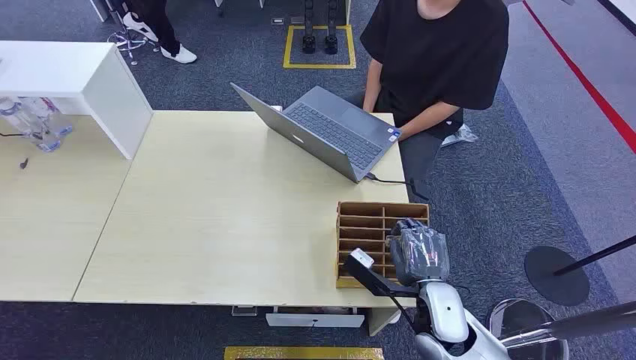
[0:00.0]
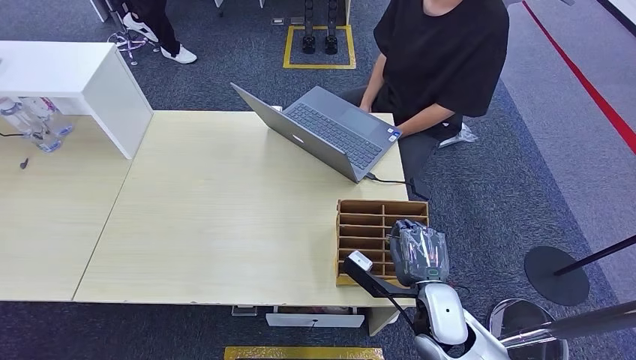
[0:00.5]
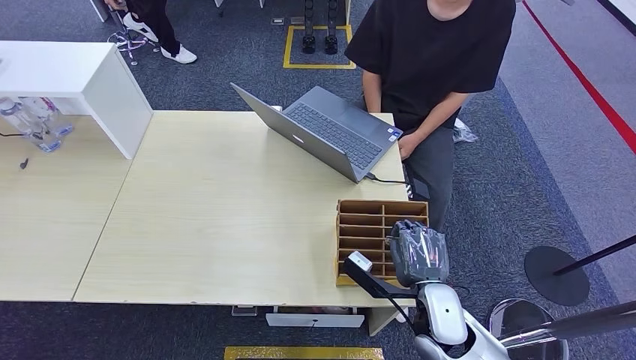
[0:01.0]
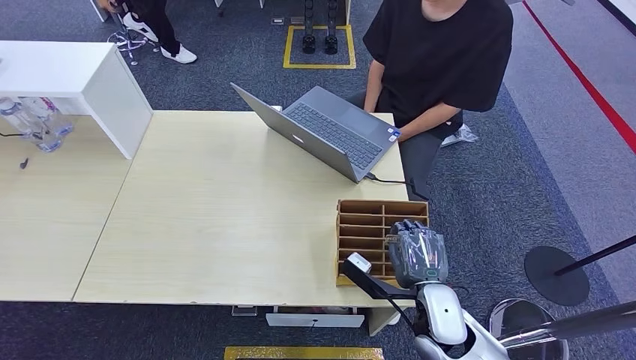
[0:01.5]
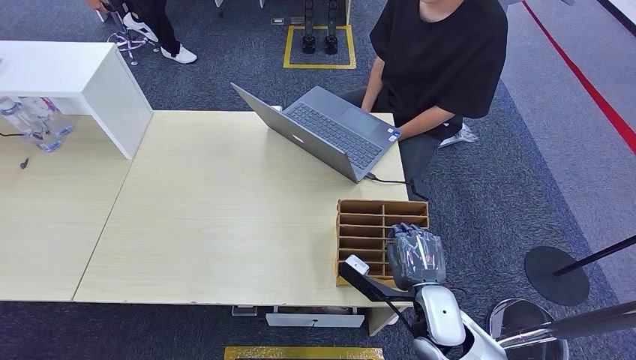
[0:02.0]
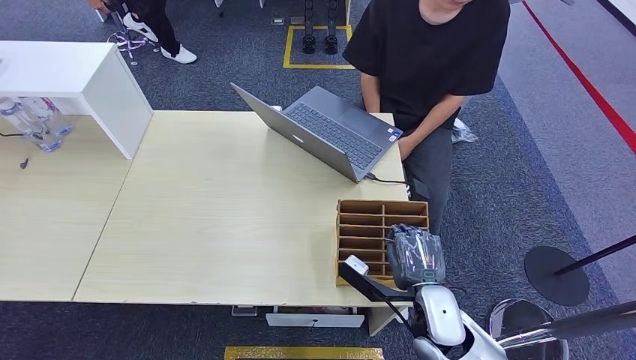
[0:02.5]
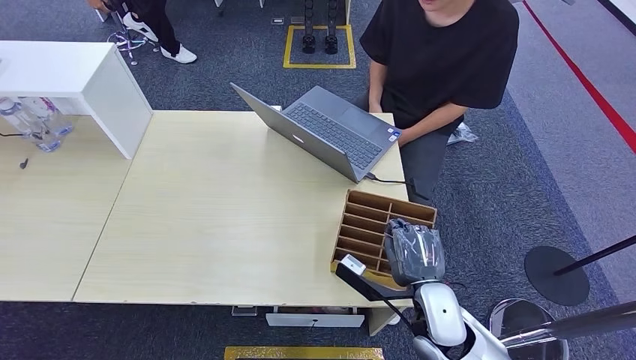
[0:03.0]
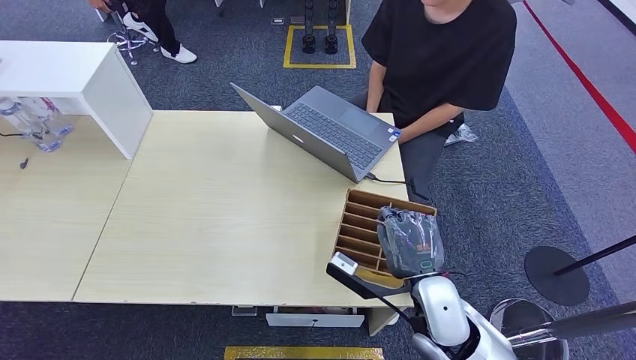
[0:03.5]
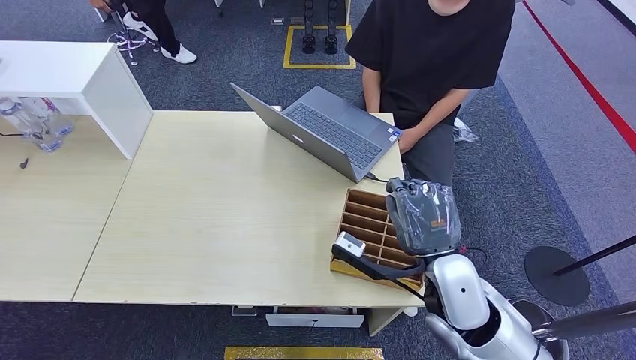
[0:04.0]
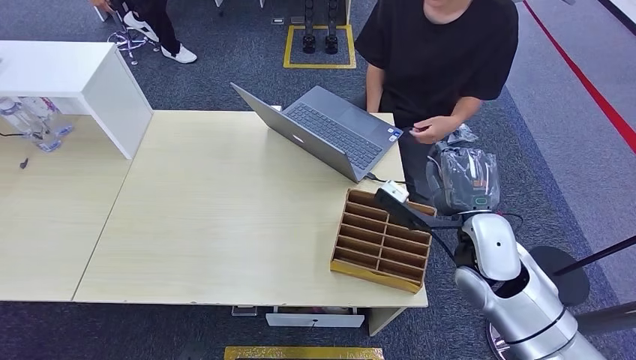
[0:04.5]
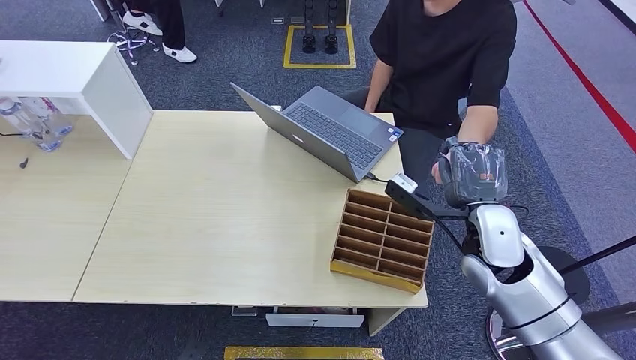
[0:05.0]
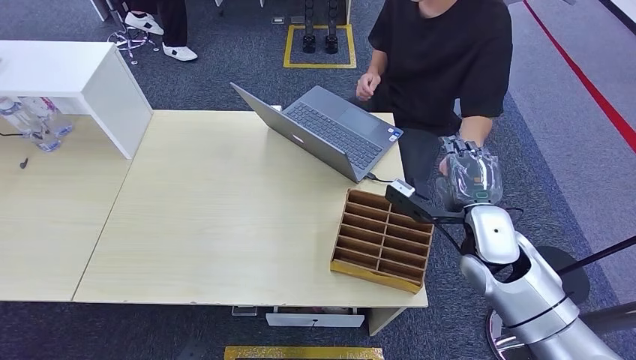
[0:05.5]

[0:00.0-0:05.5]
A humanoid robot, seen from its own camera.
Step, 0:00.0 to 0:04.0: Pick up the key card from the card box.
Step, 0:04.5 to 0:05.5: Hand the key card to the target.
0:02.0 to 0:03.5: The right hand is displaced upward by roughly 5 cm.
0:03.5 to 0:05.5: The right hand travels to the right and forward by approximately 15 cm.
